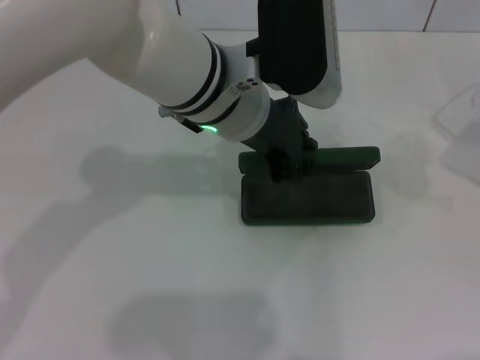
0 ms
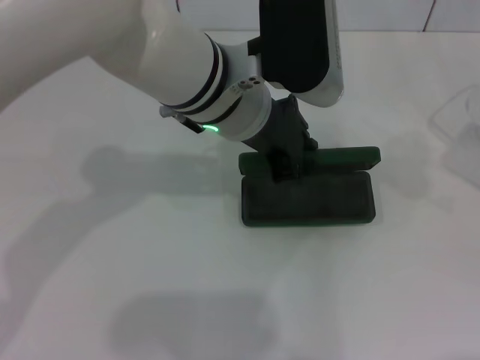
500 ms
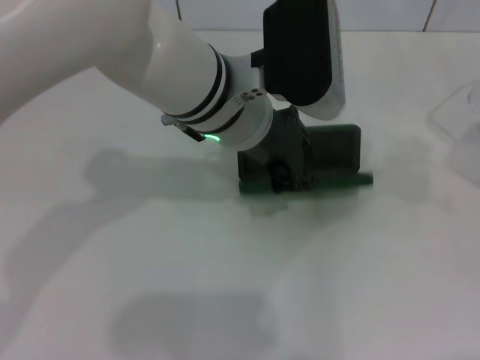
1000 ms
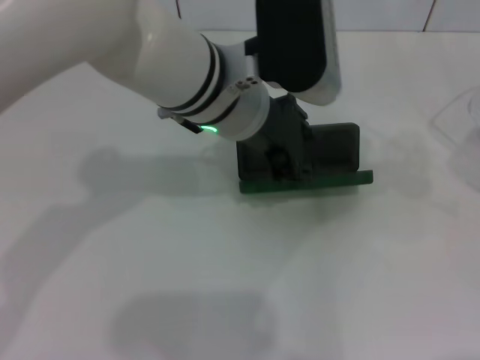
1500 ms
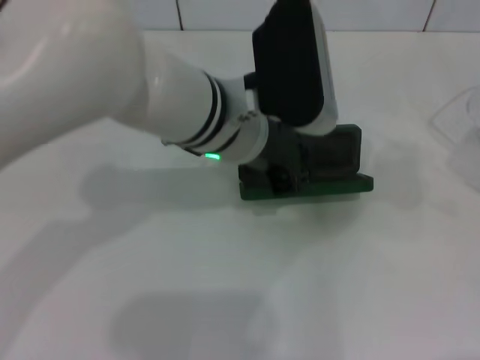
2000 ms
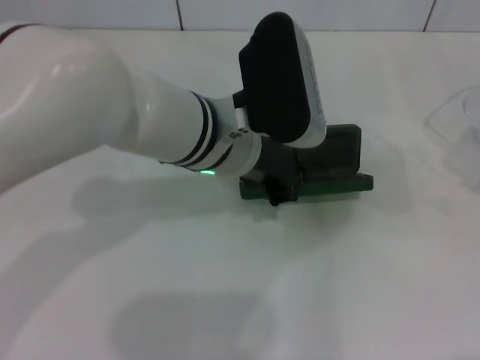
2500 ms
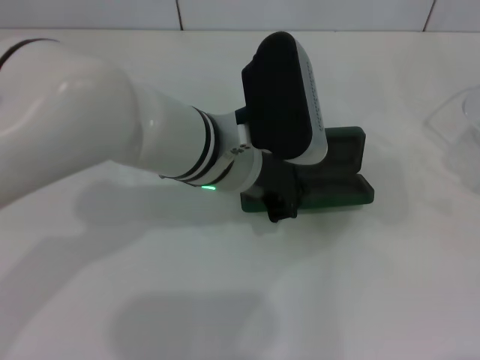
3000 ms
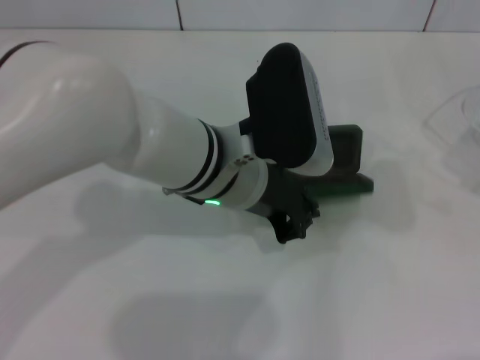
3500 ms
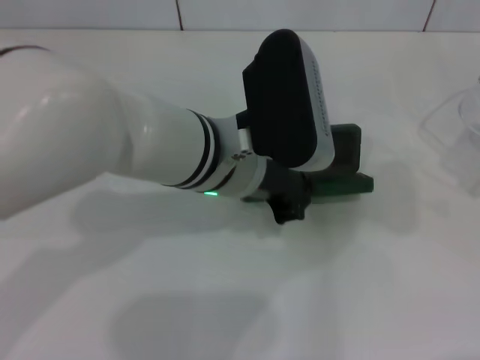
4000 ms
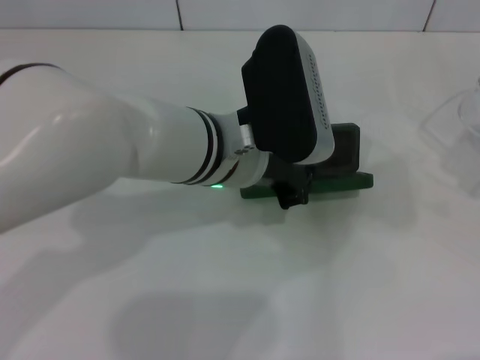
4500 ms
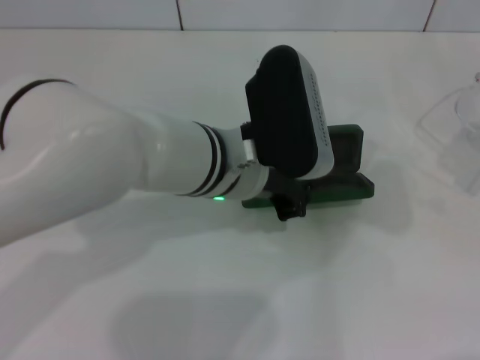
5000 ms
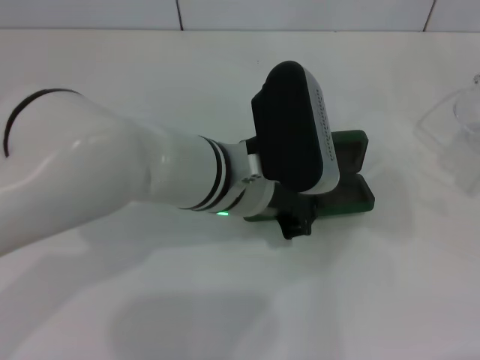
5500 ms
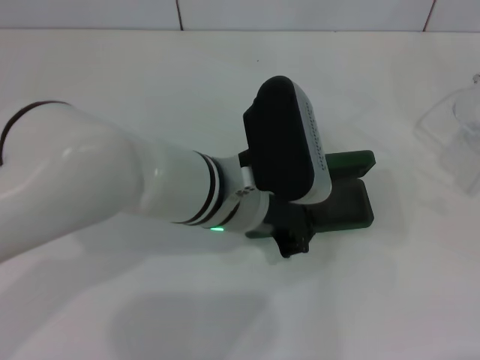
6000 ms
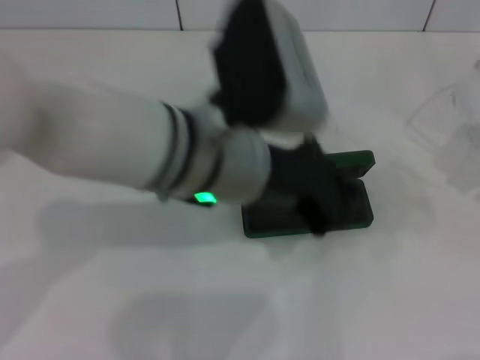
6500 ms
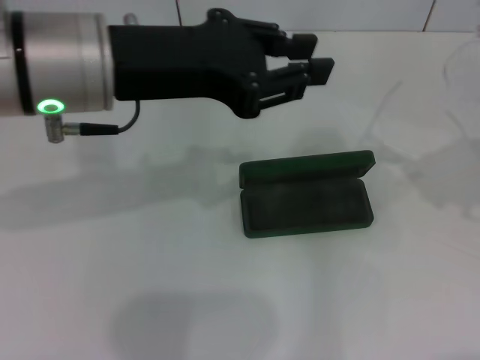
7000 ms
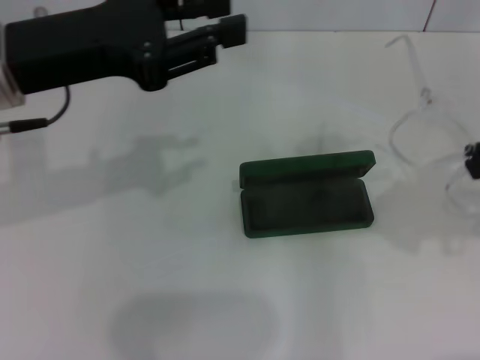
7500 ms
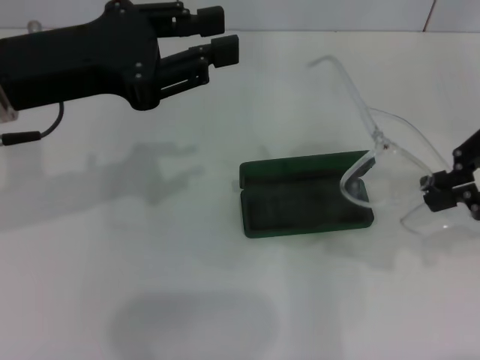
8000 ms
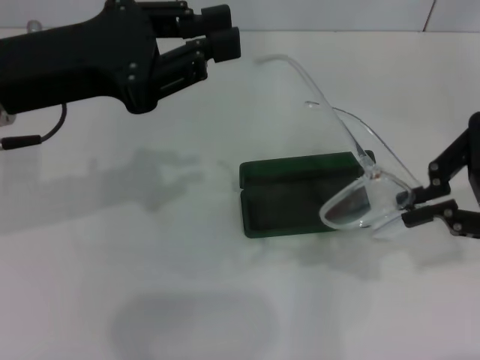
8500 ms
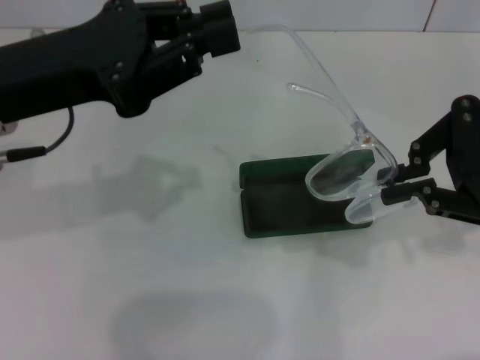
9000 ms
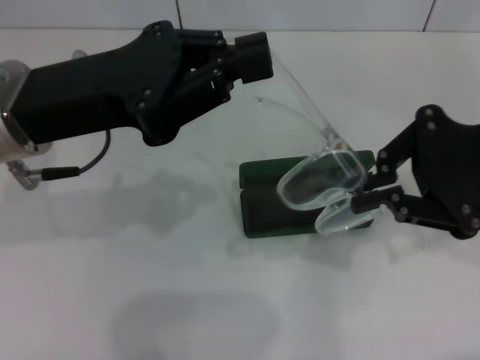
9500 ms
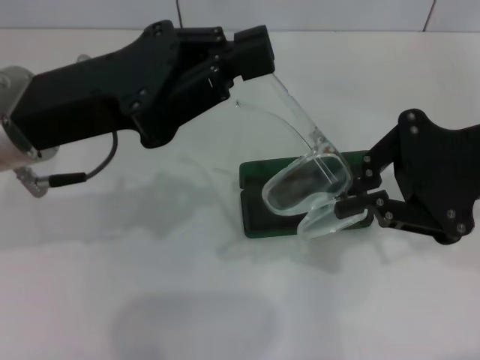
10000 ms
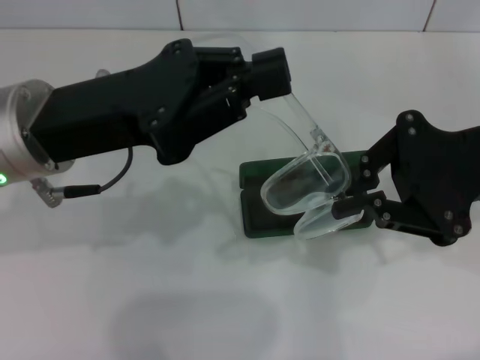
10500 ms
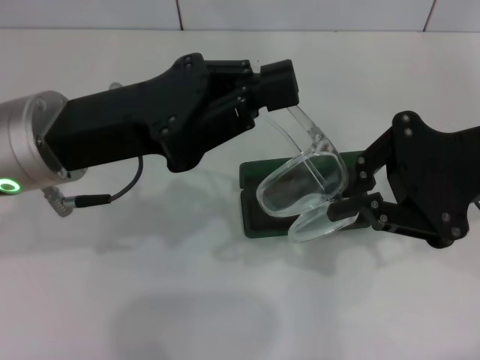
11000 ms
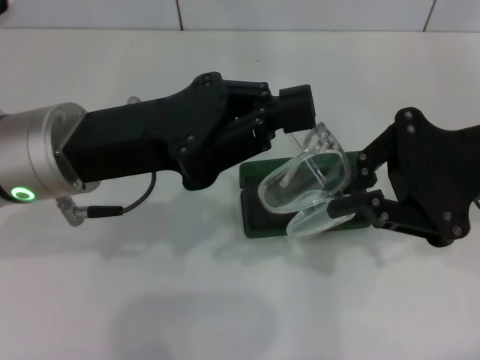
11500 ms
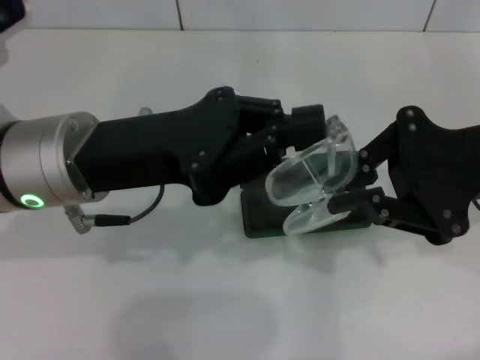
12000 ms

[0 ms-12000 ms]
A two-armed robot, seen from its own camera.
0 ms to 2000 ms: There are only small adjustments of the grippers.
2000 ms to 4000 ms: The left gripper closes its fingers.
4000 ms to 6000 ms: There are only small adjustments of the grippers.
6000 ms to 8000 ms: The left gripper is displaced to the left and upward by about 20 cm, and opens up. Meanwhile the right gripper is displaced to the left, upward and backward by about 10 cm.
8000 ms to 10000 ms: The left gripper closes up; the right gripper goes roughly 5 cm downward.

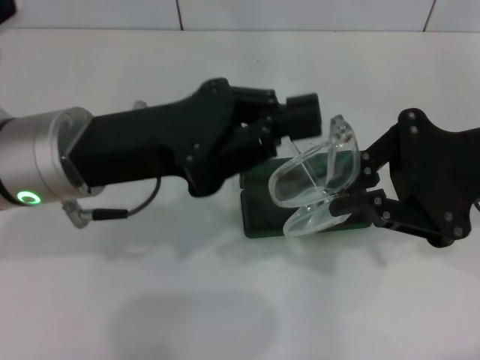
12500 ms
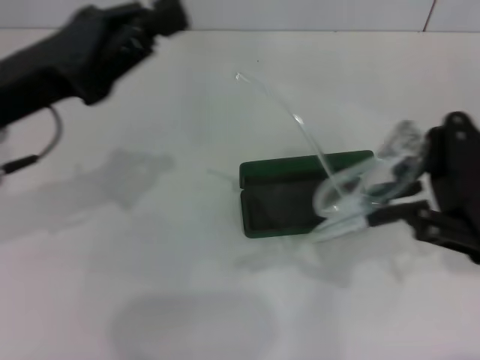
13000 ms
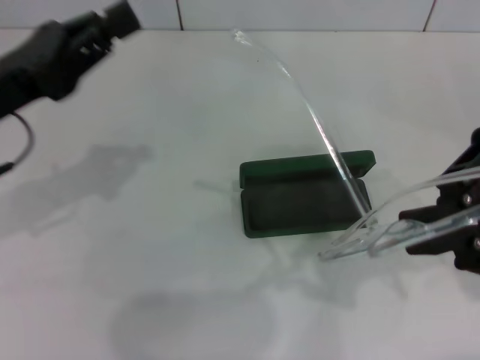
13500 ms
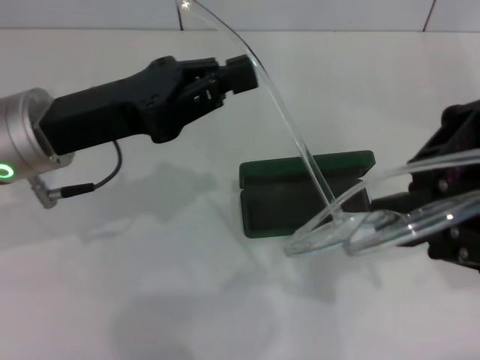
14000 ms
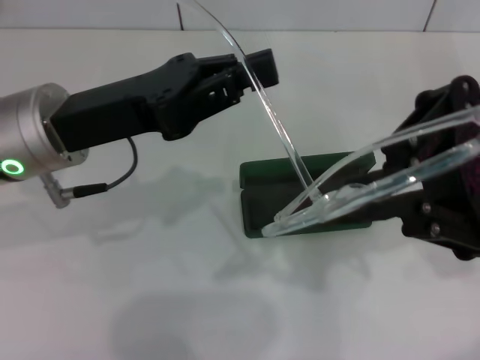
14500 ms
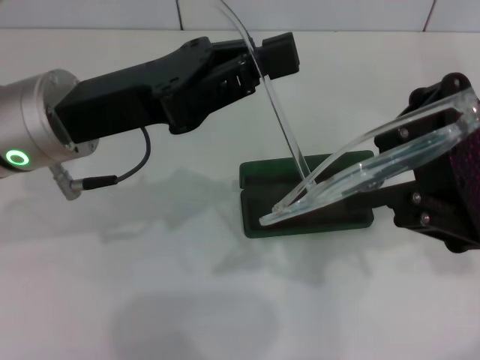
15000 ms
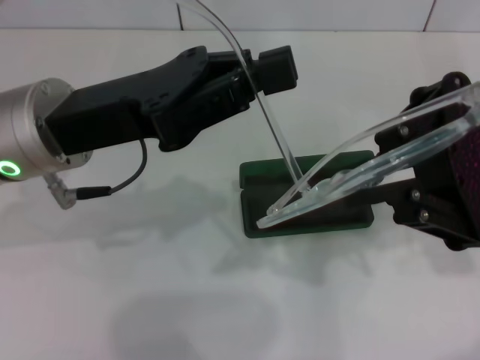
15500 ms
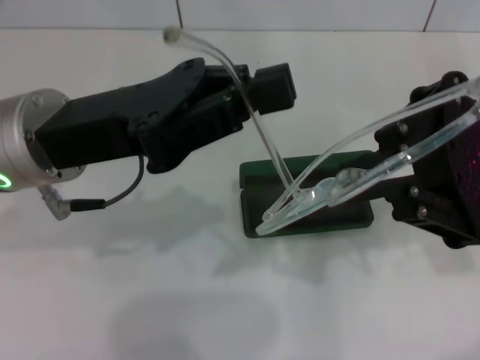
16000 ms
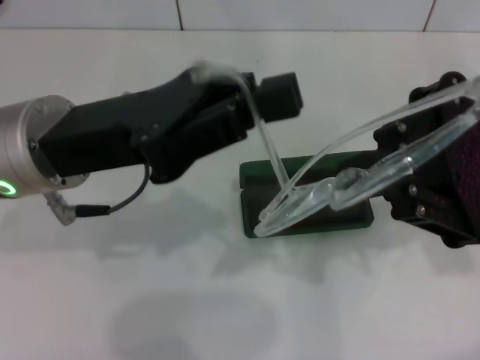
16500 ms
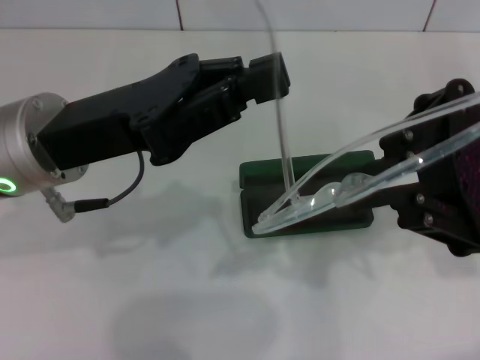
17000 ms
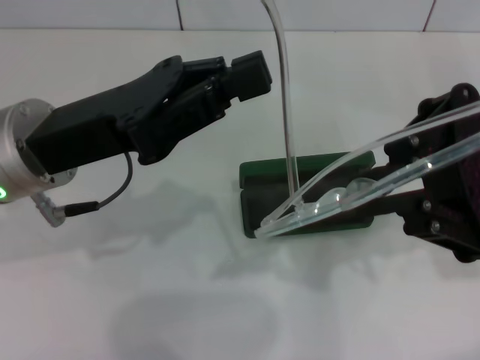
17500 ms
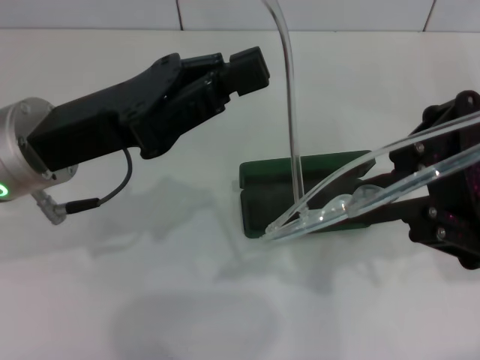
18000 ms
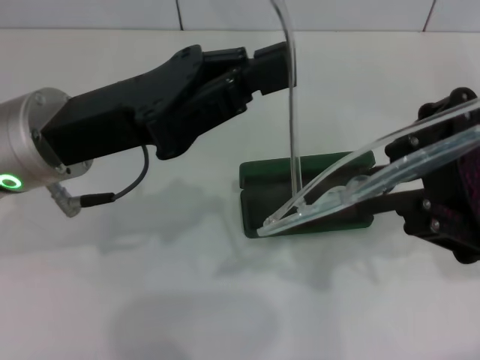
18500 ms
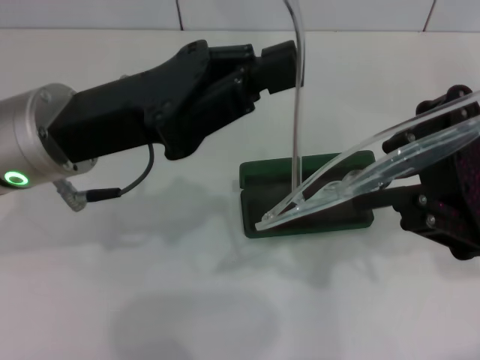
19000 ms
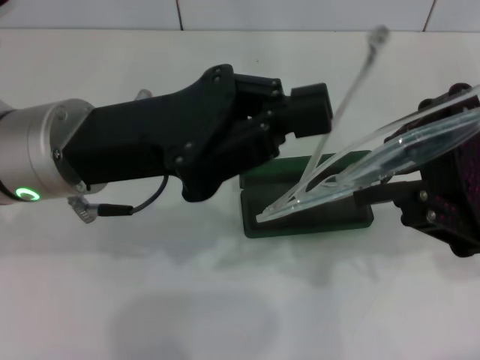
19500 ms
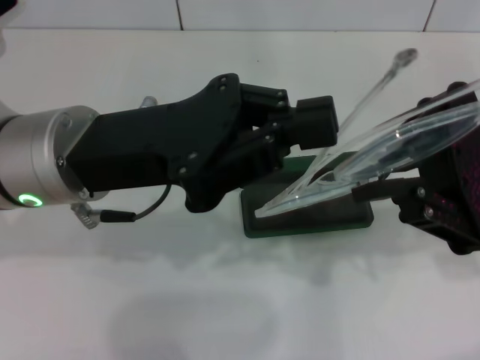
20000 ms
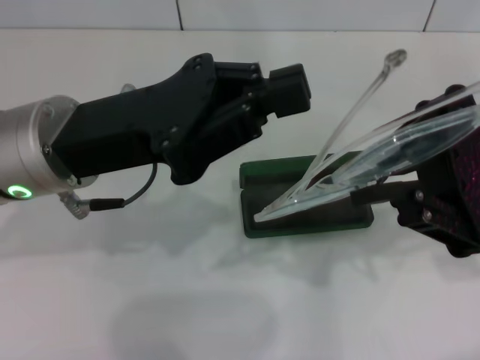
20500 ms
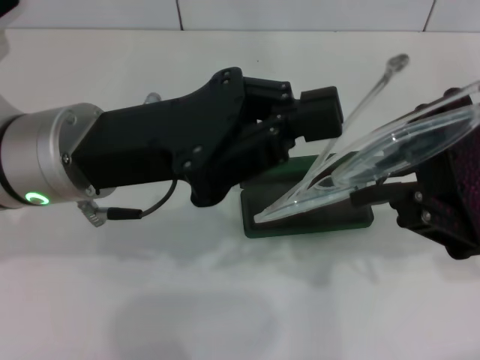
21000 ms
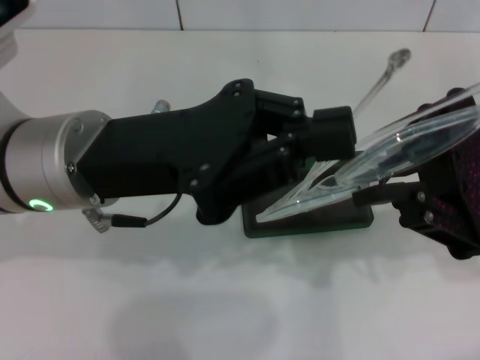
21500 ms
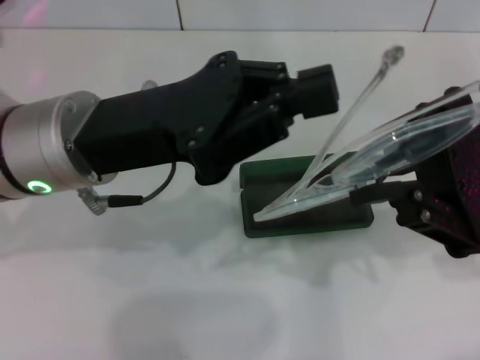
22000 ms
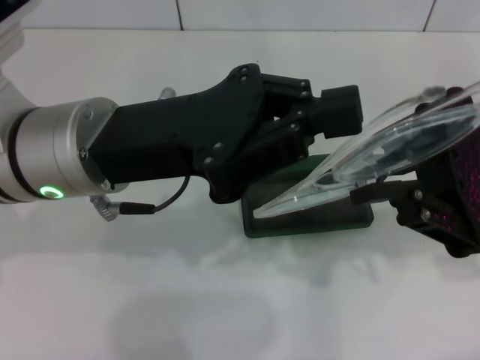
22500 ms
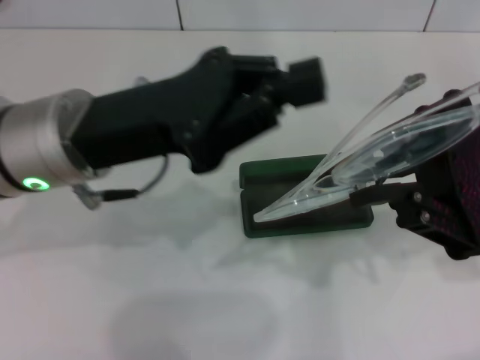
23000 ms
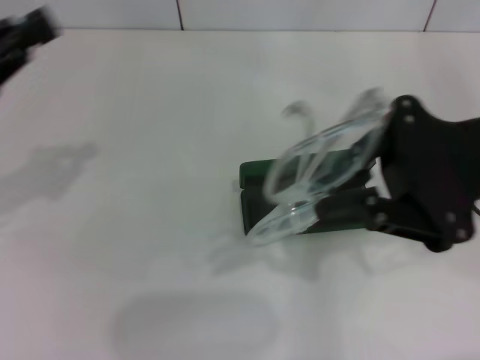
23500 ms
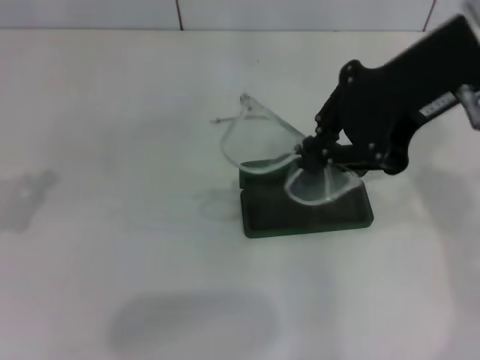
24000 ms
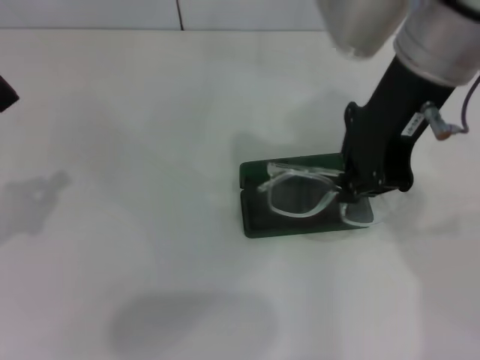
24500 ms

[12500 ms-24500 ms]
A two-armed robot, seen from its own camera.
Step, 12500 ms to 22500 ms: Fold the frame with your left hand.
12500 ms to 14500 ms: The left gripper travels to the left and back again, some 10 cm each way.
16500 ms to 22500 ms: The grippers stay close to where they were, moving slightly.
22500 ms to 24500 ms: The right gripper heads to the left, upward and forward, covering about 15 cm. Meanwhile the left gripper heads to the left, covering about 20 cm.

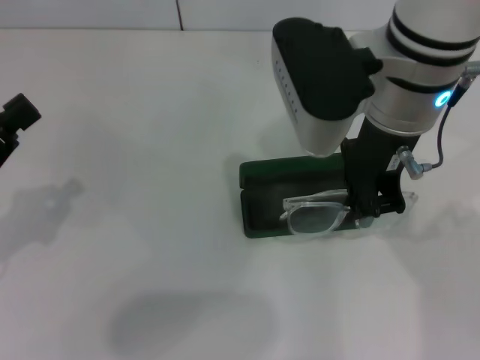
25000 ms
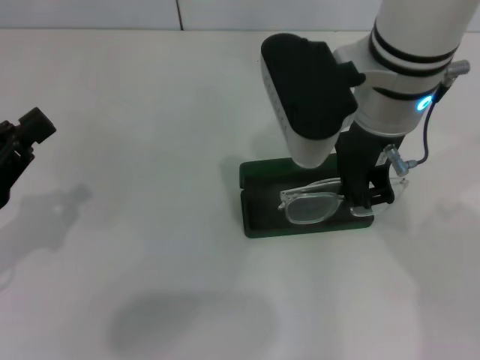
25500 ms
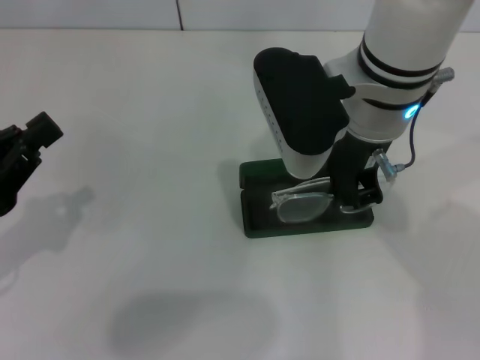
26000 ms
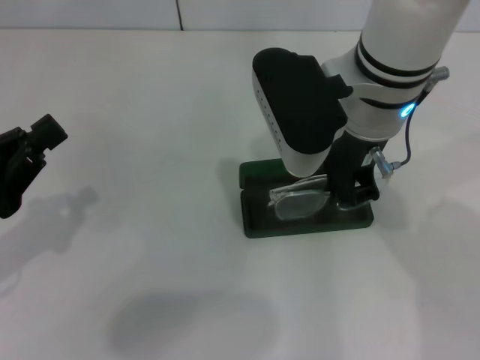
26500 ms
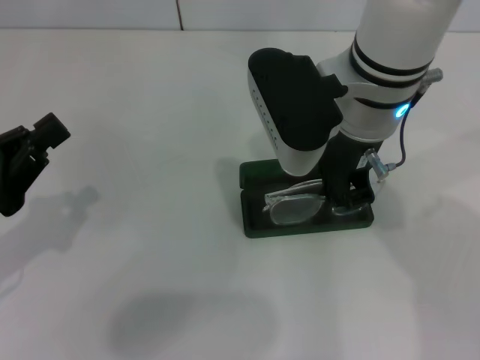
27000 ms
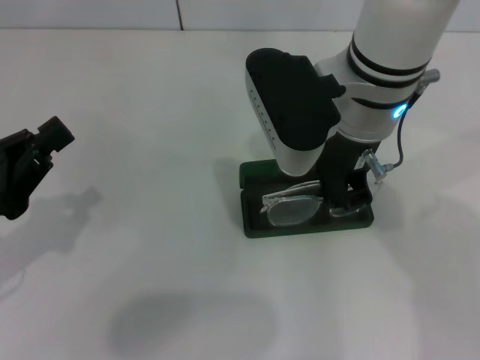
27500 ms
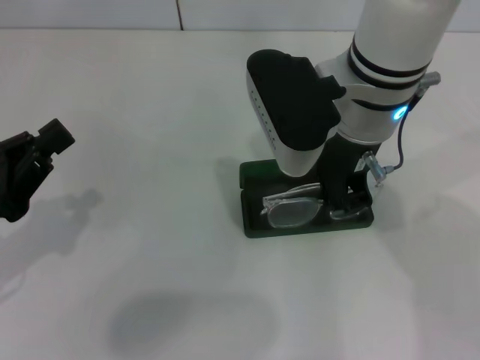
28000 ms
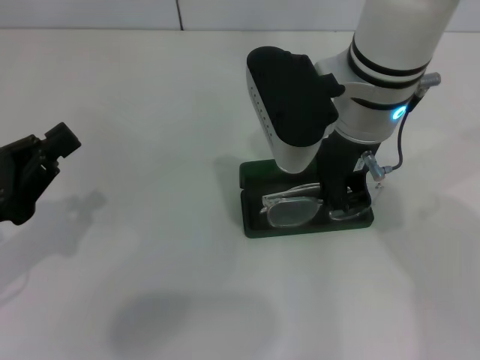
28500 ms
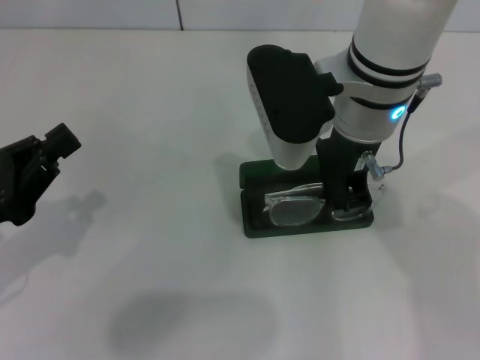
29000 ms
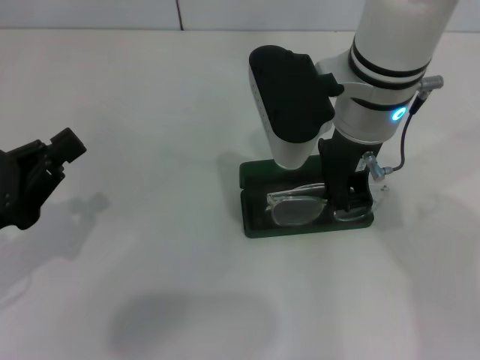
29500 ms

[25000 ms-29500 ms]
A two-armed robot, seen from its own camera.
25000 ms to 29500 ms: The grippers move only a little.
